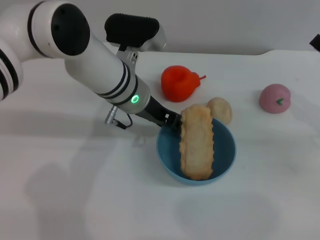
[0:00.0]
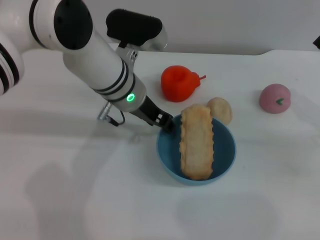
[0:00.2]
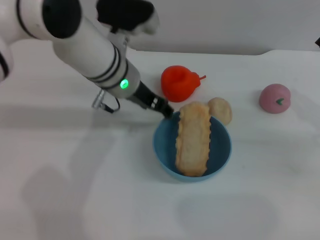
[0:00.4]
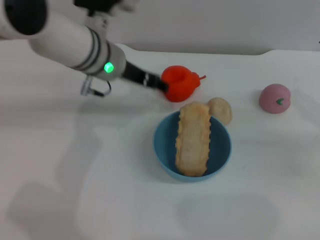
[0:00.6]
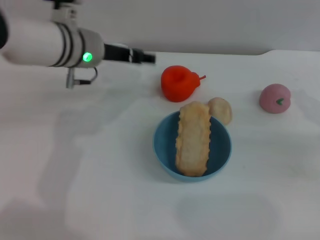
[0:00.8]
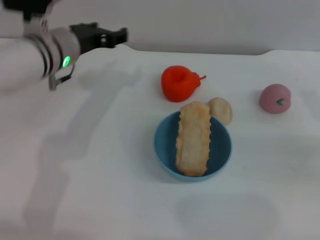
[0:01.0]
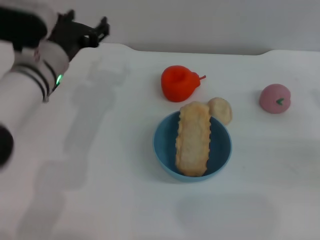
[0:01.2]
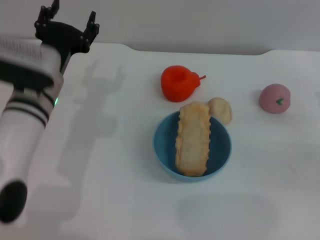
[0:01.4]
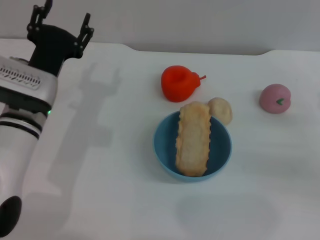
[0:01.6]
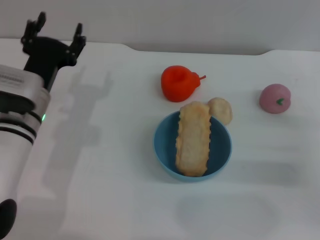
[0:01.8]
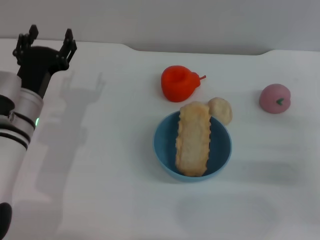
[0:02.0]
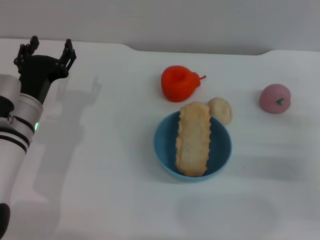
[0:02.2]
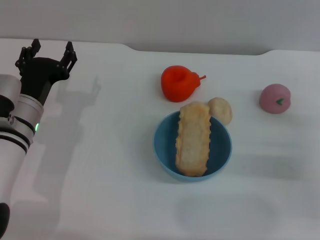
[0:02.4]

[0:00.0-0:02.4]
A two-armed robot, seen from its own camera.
Task of the whole recording: put the bread into the blue bowl and pour it out repeatedly.
Step, 0:00.0 to 0:01.2: Place the bowl on the table.
0:00.0 to 0:01.2: The left gripper goes some 10 cm to the left, and opens up.
0:01.2 to 0:02.4: The left gripper is displaced downward and backward by some 10 cm.

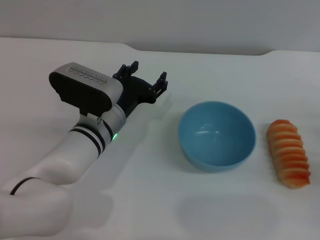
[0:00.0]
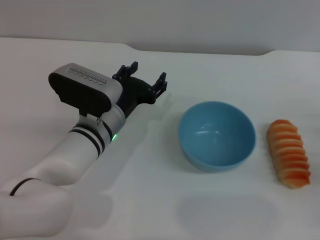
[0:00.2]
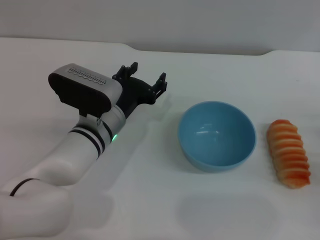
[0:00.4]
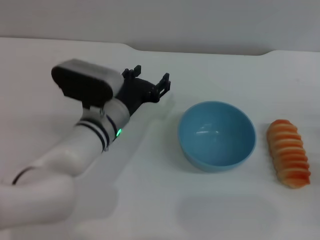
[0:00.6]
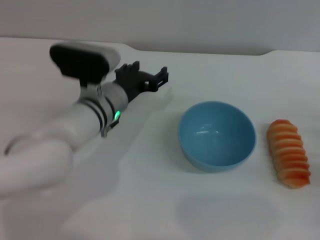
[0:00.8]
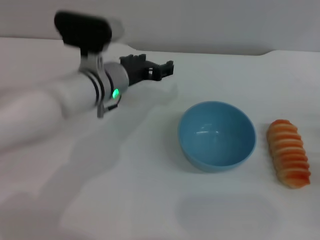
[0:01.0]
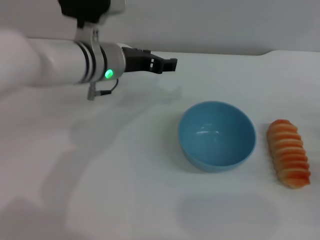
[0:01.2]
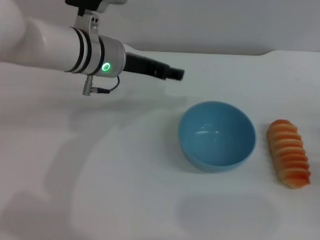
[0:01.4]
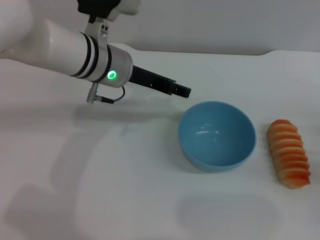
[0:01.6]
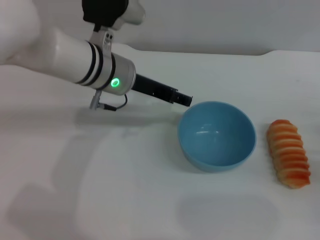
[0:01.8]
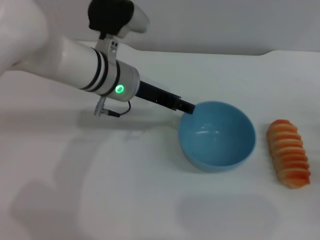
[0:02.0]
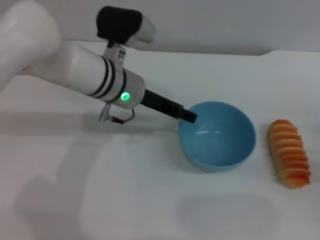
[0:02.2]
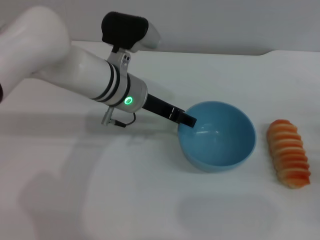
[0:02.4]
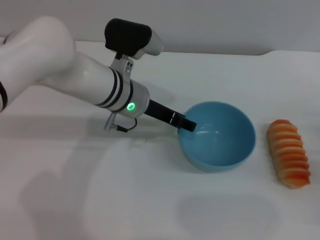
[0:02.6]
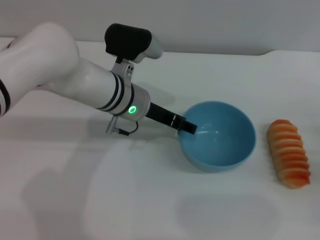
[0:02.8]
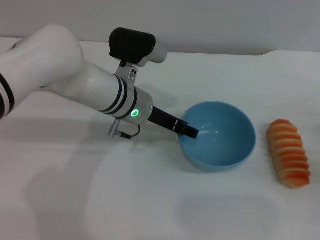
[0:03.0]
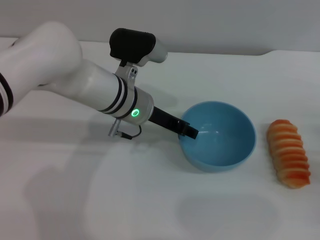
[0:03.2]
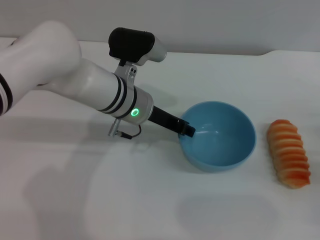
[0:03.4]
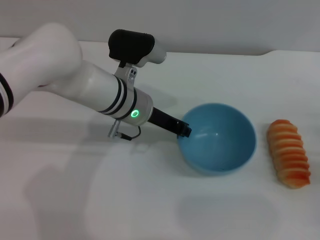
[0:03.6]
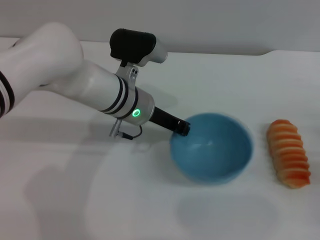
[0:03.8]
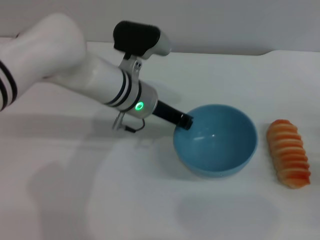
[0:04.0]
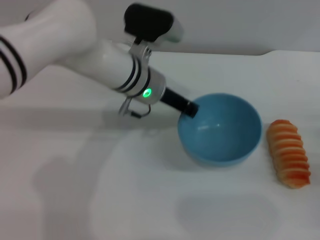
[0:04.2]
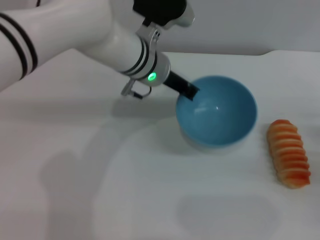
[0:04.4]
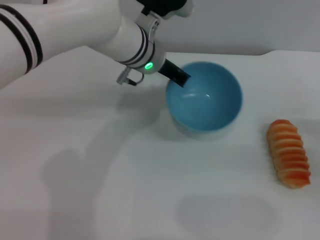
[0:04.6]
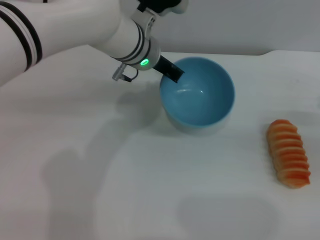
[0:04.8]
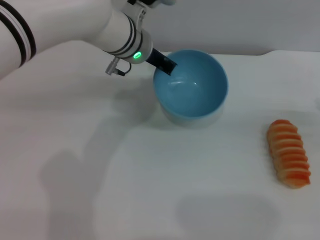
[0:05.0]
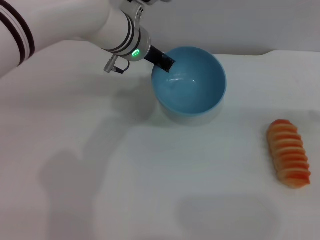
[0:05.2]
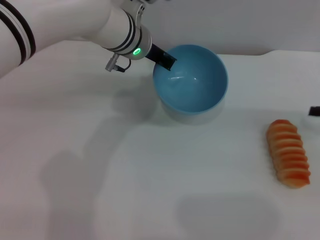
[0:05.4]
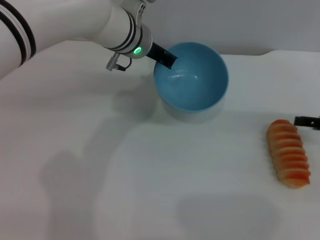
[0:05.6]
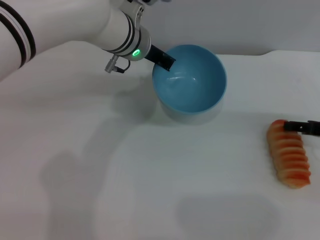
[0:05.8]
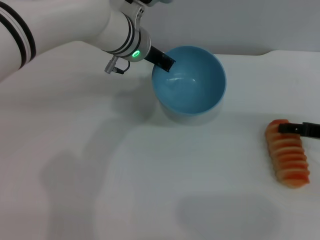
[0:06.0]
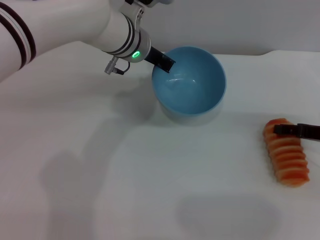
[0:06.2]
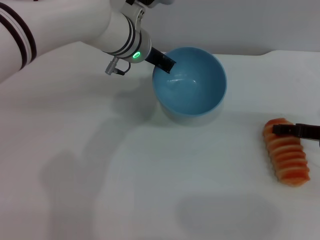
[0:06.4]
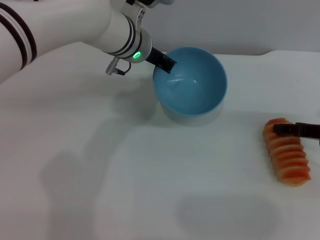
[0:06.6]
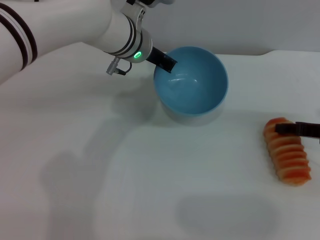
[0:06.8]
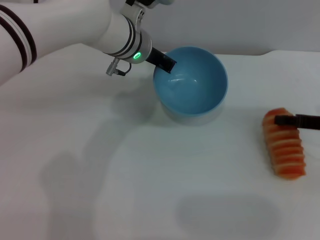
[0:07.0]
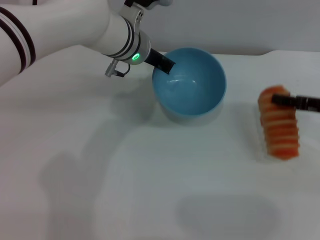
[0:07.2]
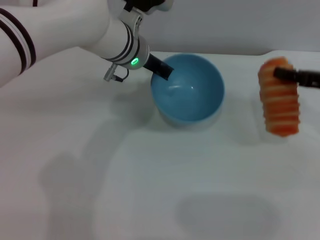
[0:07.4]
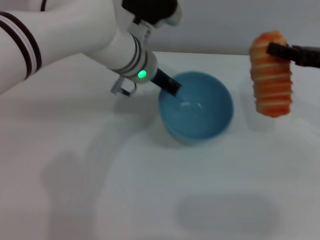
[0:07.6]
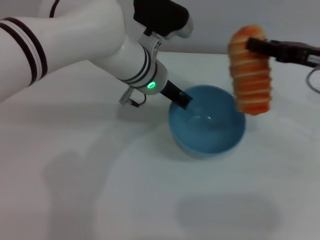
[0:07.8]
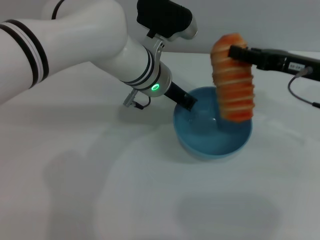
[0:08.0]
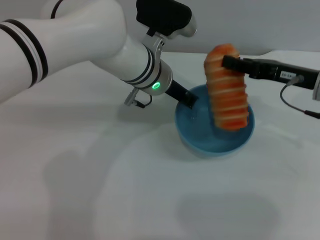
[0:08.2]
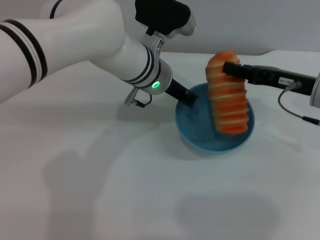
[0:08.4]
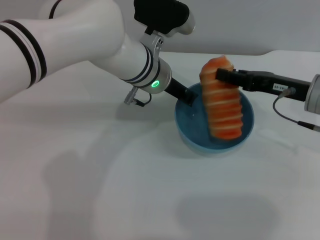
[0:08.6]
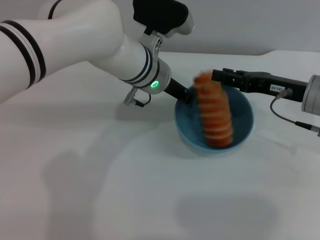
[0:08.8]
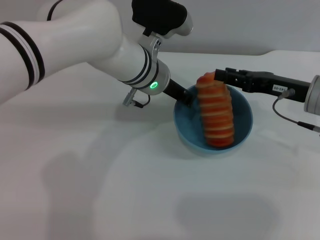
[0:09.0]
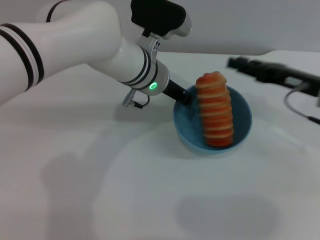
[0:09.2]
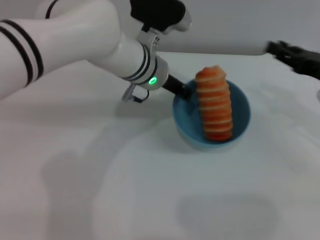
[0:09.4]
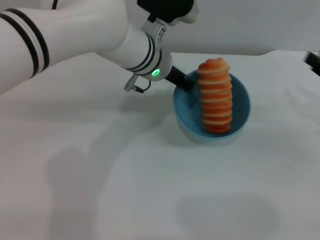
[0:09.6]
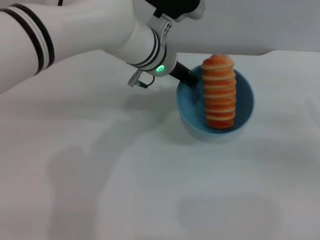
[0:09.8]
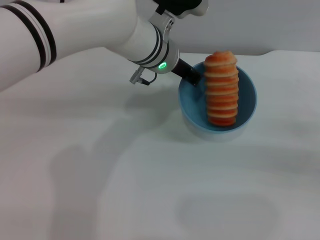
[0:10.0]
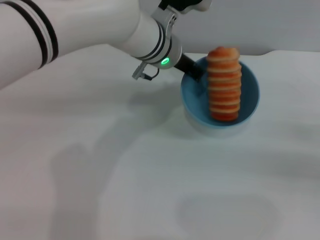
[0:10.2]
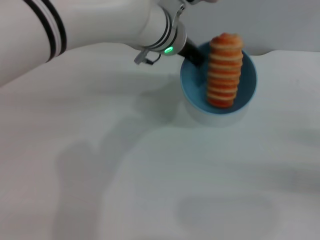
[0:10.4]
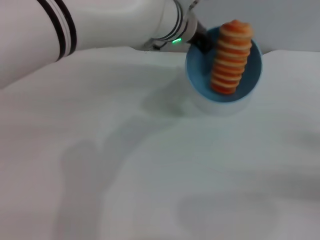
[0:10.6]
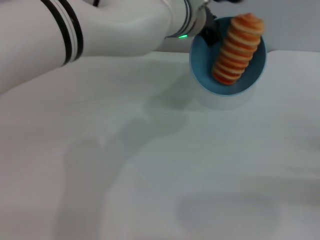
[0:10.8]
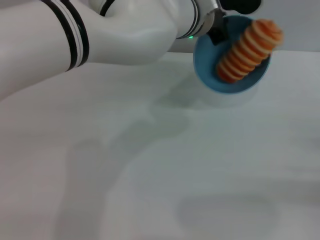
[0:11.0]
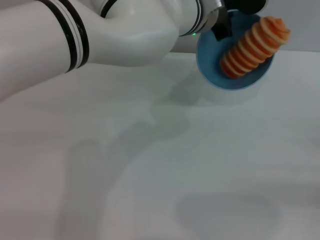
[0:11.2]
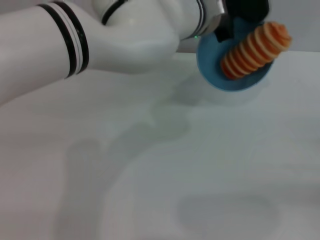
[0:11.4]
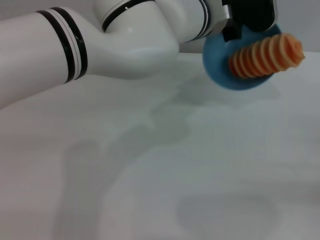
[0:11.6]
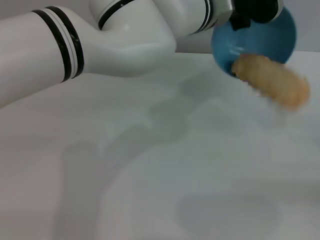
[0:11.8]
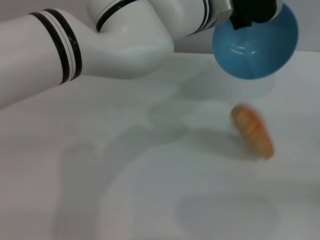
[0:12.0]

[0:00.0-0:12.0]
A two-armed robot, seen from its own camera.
Task of the whole recording: put the bread into the blue bowl and pour it out repeatedly.
Step, 0:00.0 to 0:04.6: Pick up the bowl with the left gripper.
Step, 0:04.8 to 0:07.4: Pick up the bread with the right gripper.
Step, 0:07.6 to 0:09.4: Place the bread into the bowl.
0:00.0 to 0:01.6: The left gripper shifts roughly 15 cm upward and forward.
0:01.6 to 0:03.0: The left gripper goes some 5 cm downward.
0:03.0 to 0:04.4: The left gripper moves some 5 cm, and closes its fingers.
0:04.4 to 0:06.0: The right gripper is displaced forward by roughly 5 cm.
0:06.0 to 0:07.6: The right gripper moves upward, some 10 cm, and closes.
0:07.6 to 0:09.0: The right gripper shifts approximately 5 cm to the left.
0:09.0 to 0:10.4: The right gripper is displaced to the right and backward by about 20 cm, while the left gripper changes place by about 5 cm.
0:10.4 to 0:12.0: The left gripper shifts by roughly 5 cm.

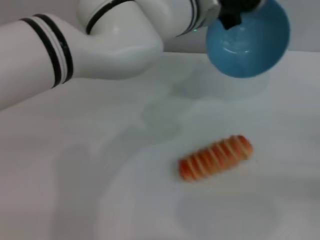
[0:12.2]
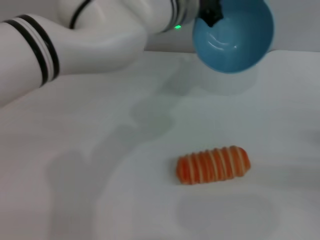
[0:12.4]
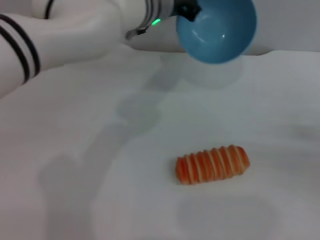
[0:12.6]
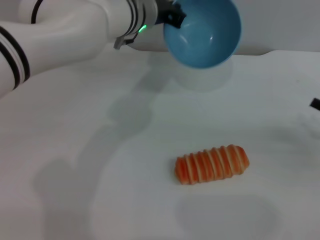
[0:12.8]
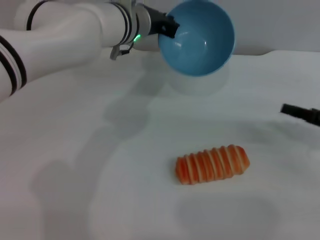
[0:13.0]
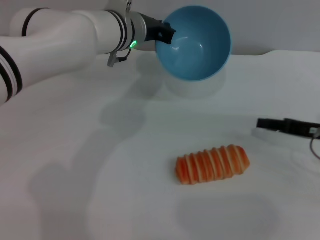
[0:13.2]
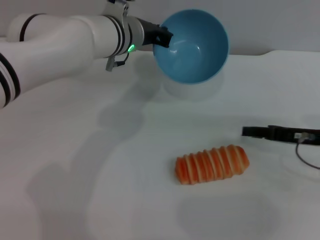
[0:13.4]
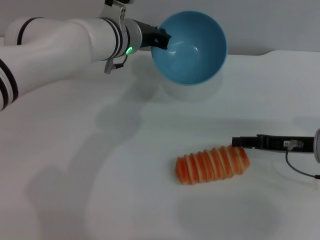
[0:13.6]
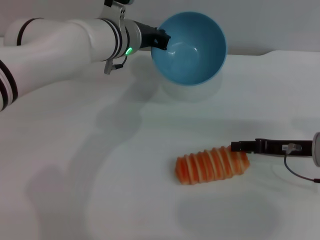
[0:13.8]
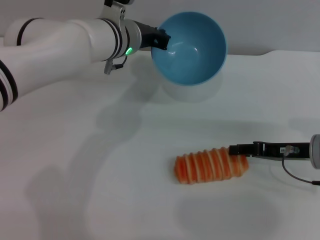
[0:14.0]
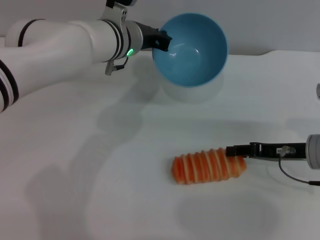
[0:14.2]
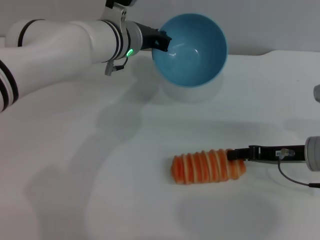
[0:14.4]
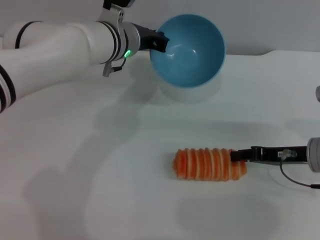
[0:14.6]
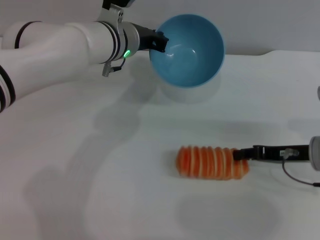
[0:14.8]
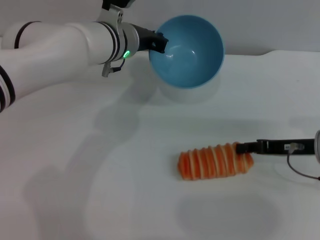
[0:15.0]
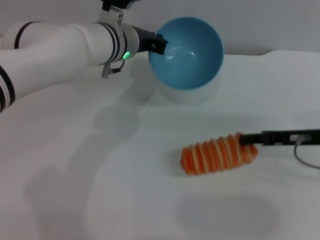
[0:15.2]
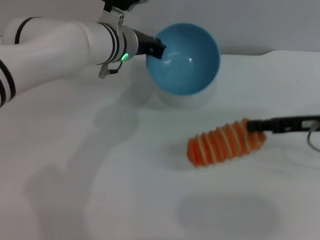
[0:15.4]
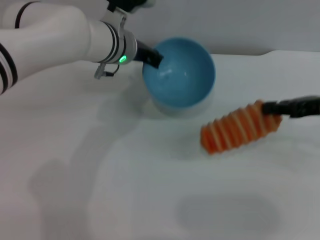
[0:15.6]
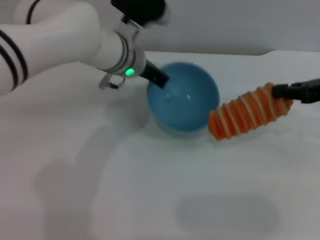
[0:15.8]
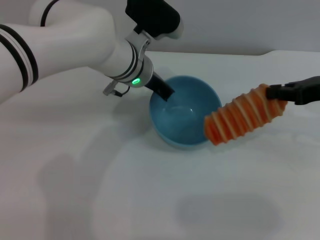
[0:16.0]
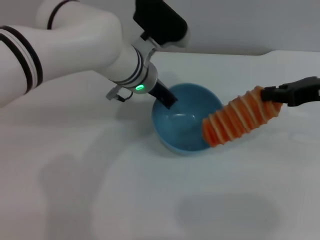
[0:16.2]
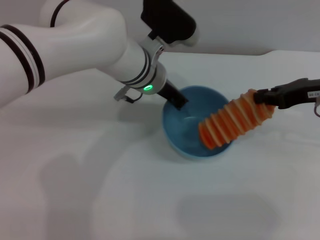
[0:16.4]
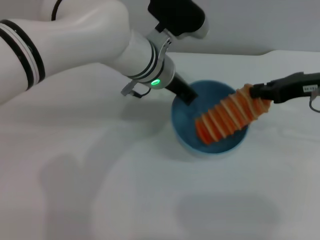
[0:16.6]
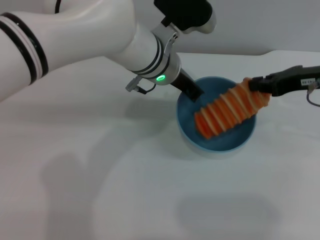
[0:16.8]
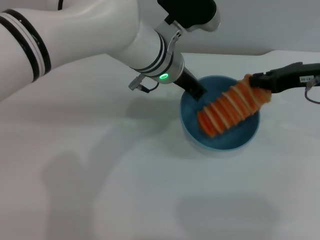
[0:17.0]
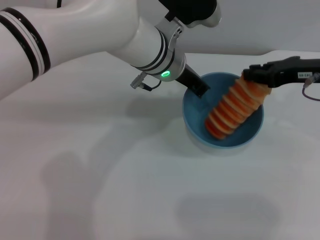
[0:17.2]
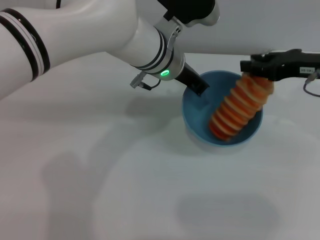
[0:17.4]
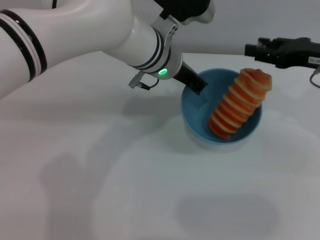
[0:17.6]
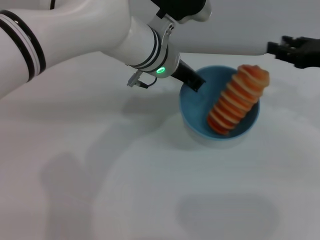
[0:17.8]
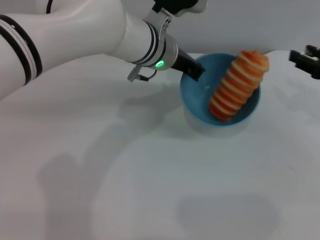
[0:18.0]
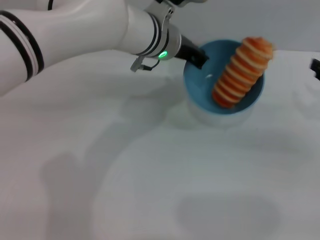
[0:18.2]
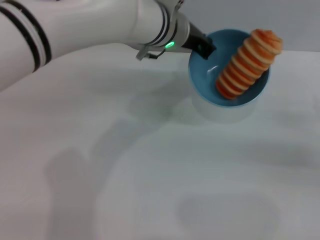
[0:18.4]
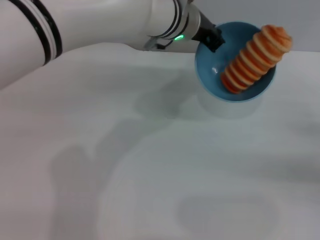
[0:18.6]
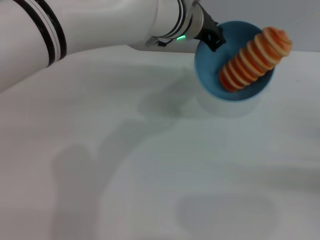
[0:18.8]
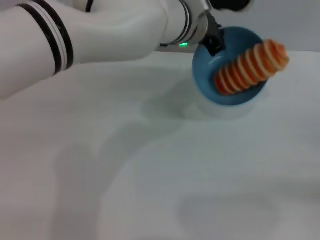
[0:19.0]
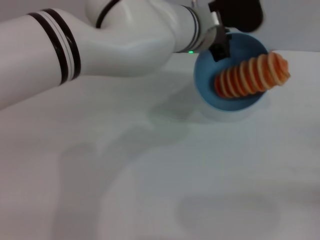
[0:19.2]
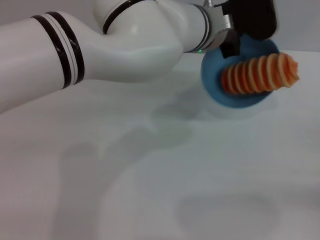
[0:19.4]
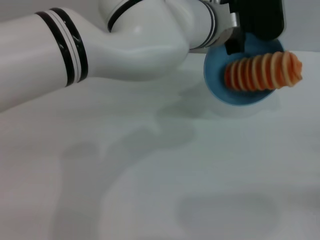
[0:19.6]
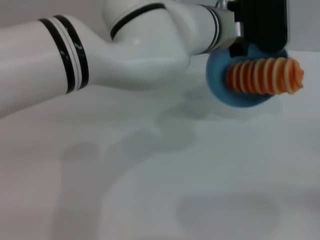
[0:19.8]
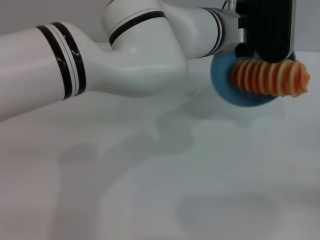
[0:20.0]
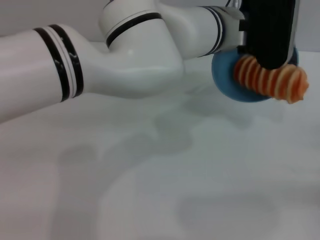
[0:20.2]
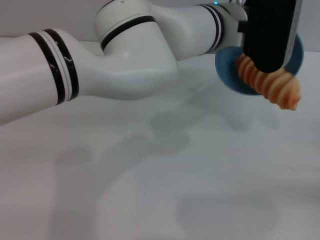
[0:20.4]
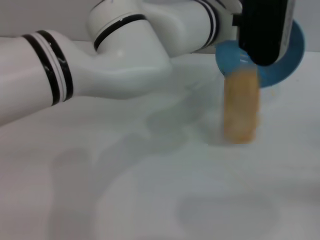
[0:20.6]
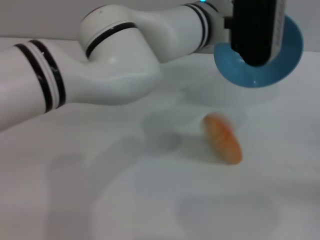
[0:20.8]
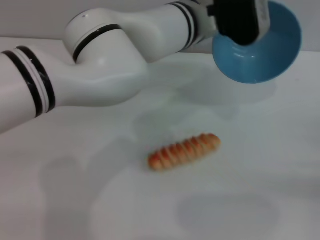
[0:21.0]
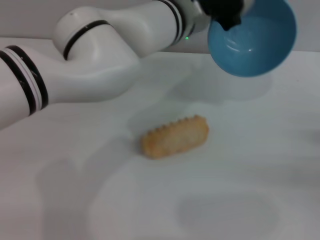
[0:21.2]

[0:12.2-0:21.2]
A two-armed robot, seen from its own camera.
Task of the whole recording: put the bread into the blue bowl and pour it out repeatedly.
Step, 0:12.8 to 0:15.4: Pick up the bread with the right gripper.
Step, 0:15.8 to 0:17.6: Place the bread into the bowl.
Step, 0:17.8 to 0:21.0: Pour the bread out of the bowl.
0:12.2 to 0:13.8: The right gripper travels to the left and forward by roughly 15 cm; the left gripper shifts approximately 10 cm to the left and downward.
0:13.8 to 0:15.2: The right gripper closes.
0:15.2 to 0:16.6: The left gripper travels to the right by some 5 cm. Meanwhile the right gripper shifts approximately 10 cm upward.
0:16.6 to 0:18.2: The right gripper heads to the right and downward, covering about 10 cm, and opens its fingers.
0:18.2 to 0:19.8: The right gripper goes approximately 15 cm backward, downward and to the right. The left gripper shifts some 5 cm to the right.
